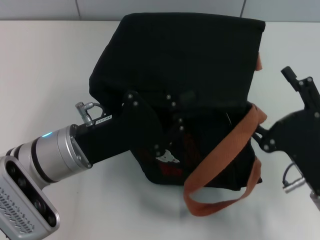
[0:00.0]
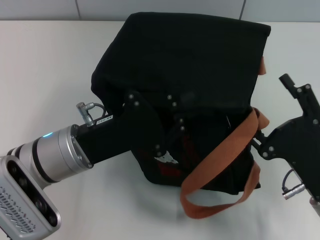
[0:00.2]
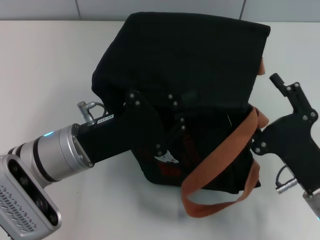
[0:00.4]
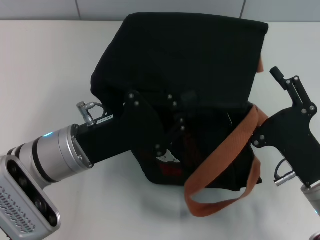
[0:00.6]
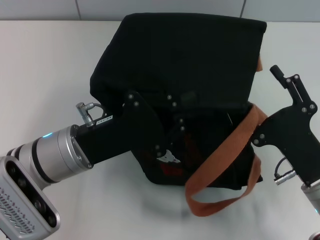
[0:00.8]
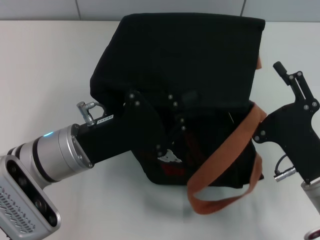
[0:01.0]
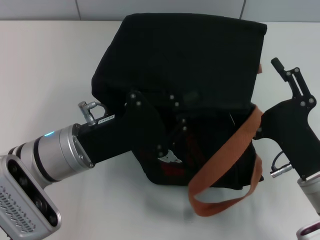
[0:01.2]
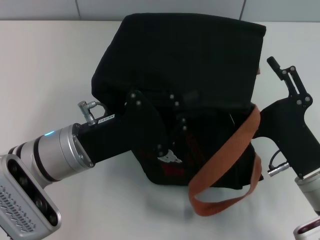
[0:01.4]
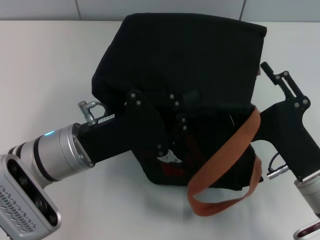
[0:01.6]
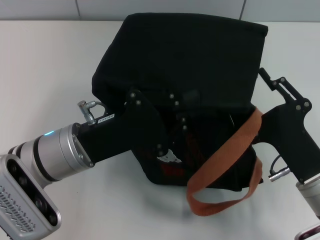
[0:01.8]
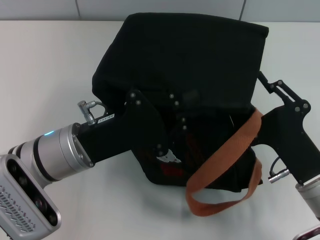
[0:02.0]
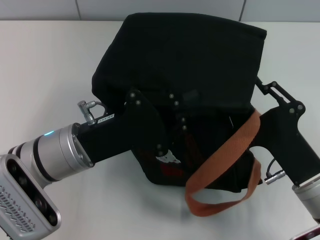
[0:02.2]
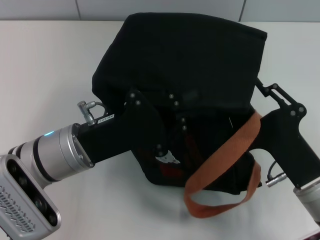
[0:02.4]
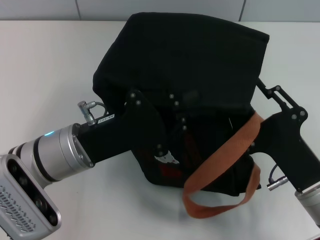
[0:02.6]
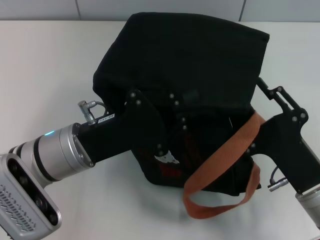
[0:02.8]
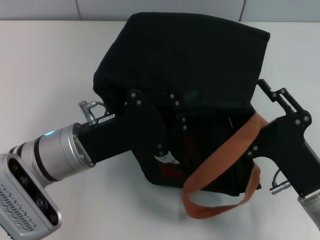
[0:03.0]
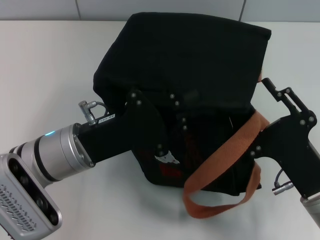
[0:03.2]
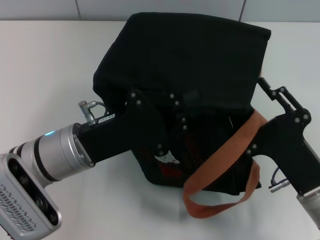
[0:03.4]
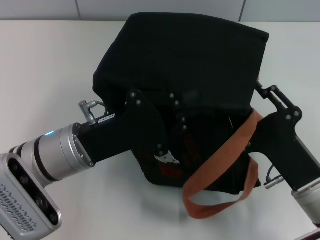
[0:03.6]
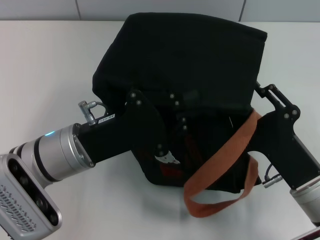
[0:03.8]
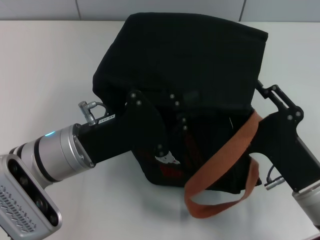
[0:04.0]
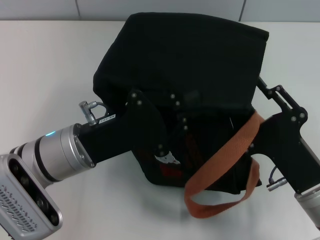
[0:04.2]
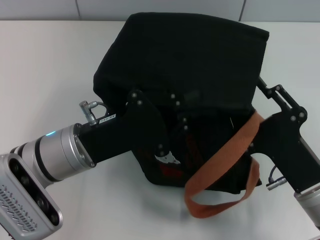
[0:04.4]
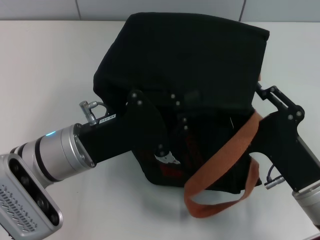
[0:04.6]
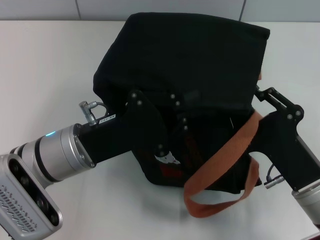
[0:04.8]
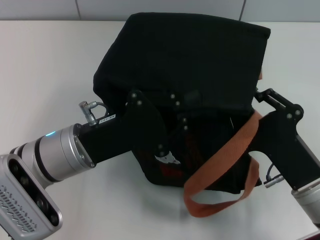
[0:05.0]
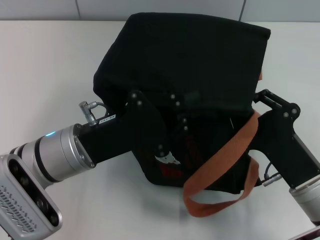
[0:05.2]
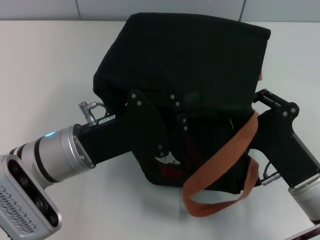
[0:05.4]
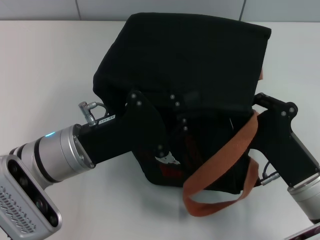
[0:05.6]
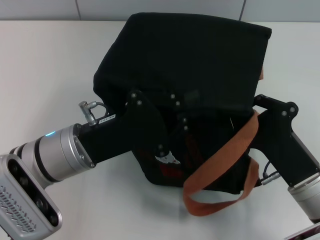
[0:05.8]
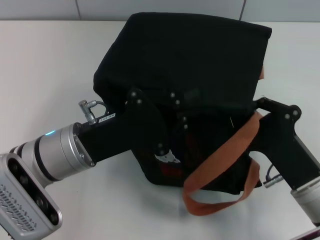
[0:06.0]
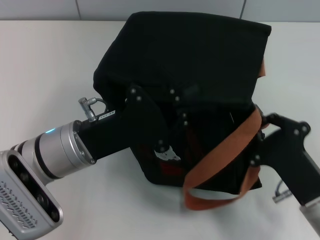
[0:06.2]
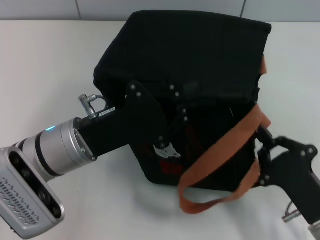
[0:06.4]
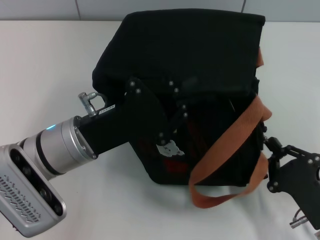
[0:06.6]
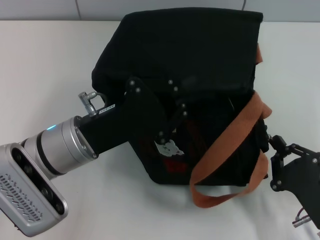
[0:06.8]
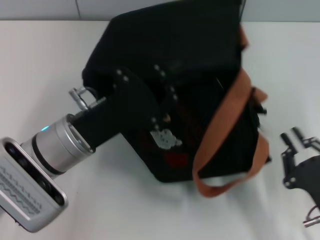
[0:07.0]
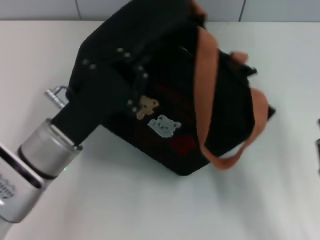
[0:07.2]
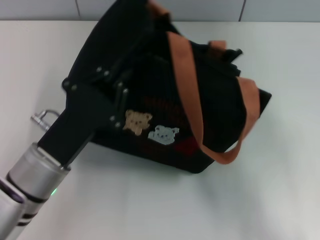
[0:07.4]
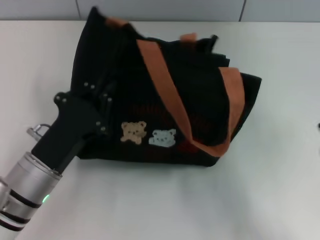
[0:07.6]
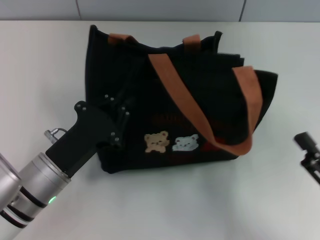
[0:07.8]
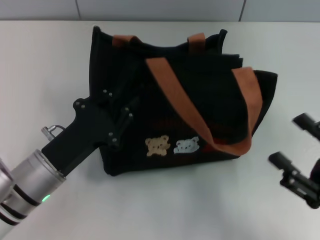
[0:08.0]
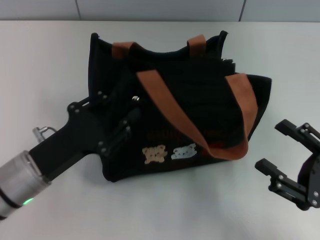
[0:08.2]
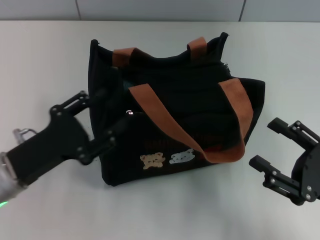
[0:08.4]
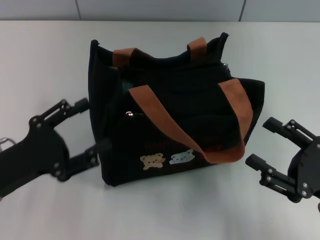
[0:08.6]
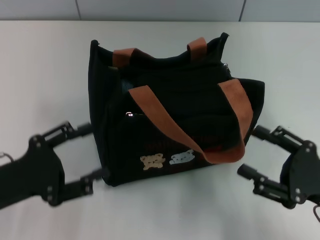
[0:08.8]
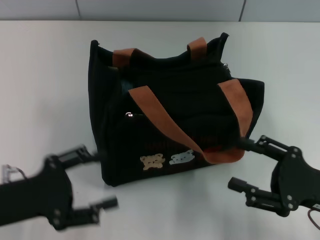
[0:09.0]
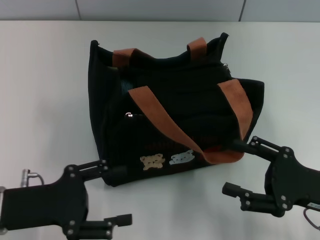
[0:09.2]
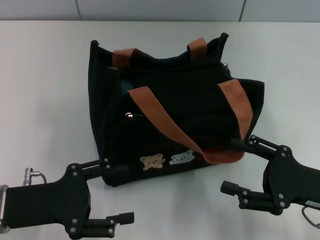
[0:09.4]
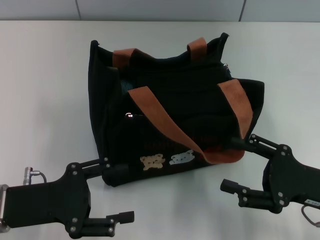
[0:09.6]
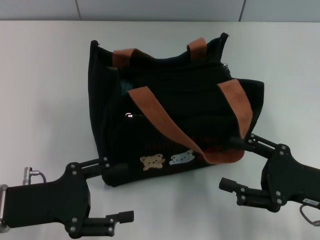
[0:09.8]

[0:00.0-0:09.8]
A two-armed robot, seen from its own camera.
Step, 0:00.0 to 0:06.8: Pull open the zipper with your right hand.
Step, 0:07.2 to 0:08.4: Grab the bag with your left hand.
0:00.0 to 0:01.4: The grippers make only small movements.
0:01.4 to 0:02.8: The right gripper closes its fingers.
0:02.8 to 0:04.2: Both grippers stay put.
0:04.2 to 0:05.6: The right gripper closes up.
0:05.6 to 0:07.0: The right gripper moves backward, about 5 cm.
0:07.0 to 0:08.4: The right gripper changes place by roughly 5 cm, and opens. The left gripper shifts about 10 cm to the left, and opens its fingers.
0:08.4 to 0:09.8: The left gripper opens its fingers.

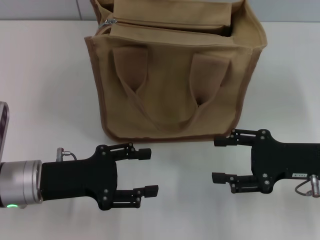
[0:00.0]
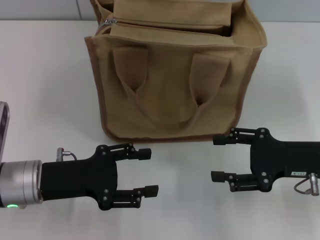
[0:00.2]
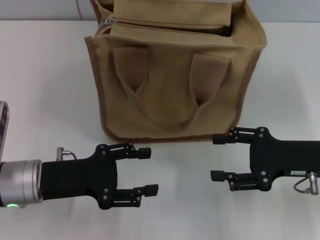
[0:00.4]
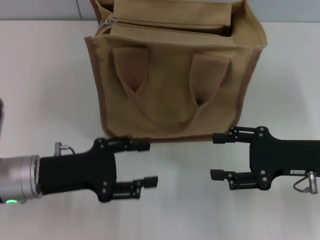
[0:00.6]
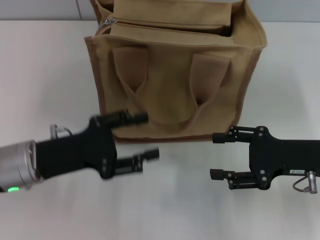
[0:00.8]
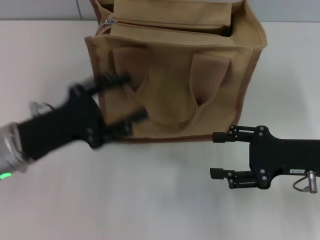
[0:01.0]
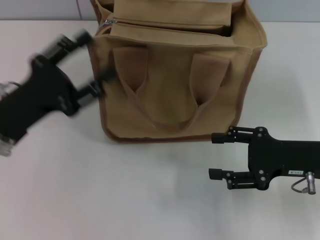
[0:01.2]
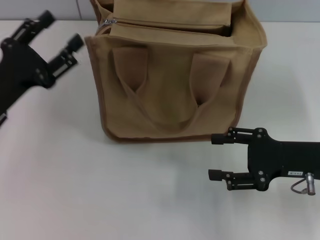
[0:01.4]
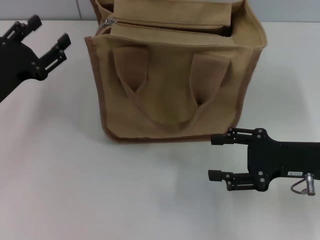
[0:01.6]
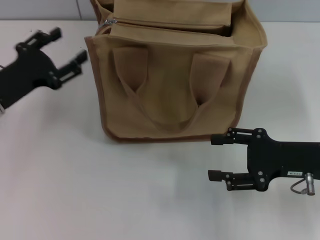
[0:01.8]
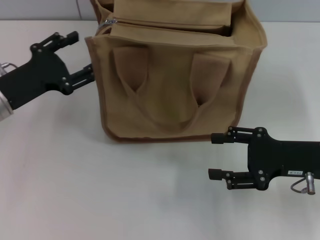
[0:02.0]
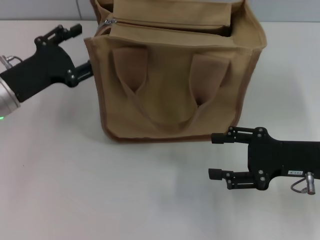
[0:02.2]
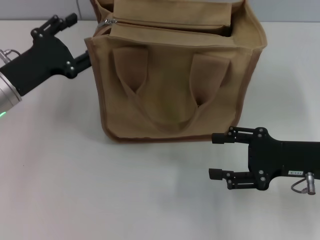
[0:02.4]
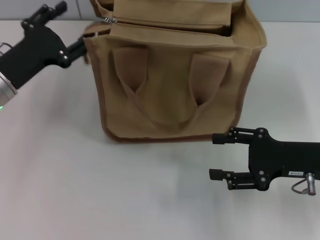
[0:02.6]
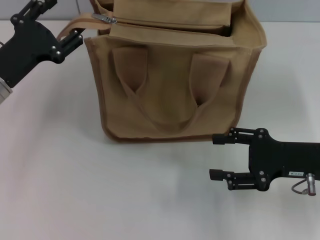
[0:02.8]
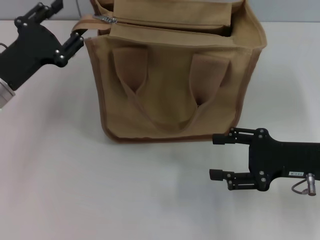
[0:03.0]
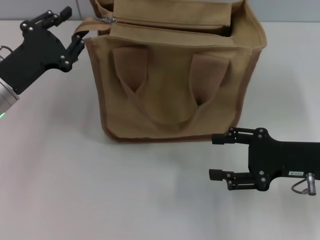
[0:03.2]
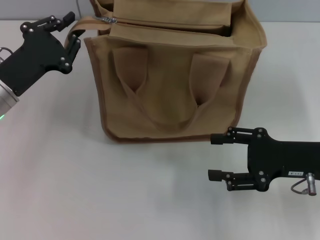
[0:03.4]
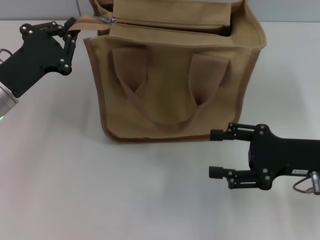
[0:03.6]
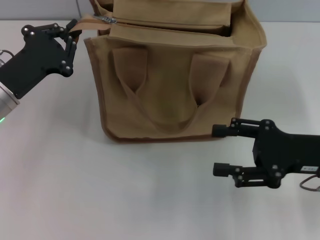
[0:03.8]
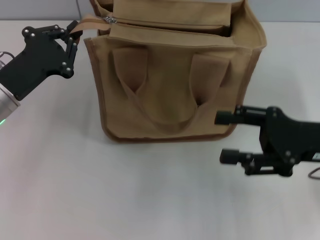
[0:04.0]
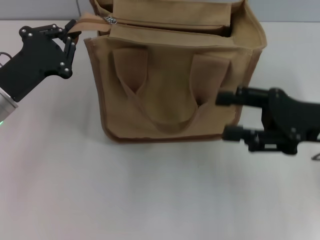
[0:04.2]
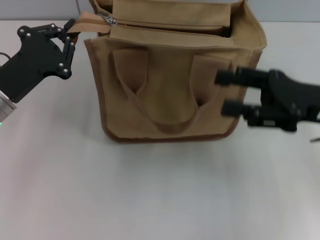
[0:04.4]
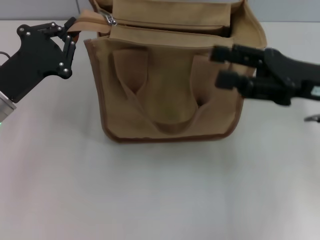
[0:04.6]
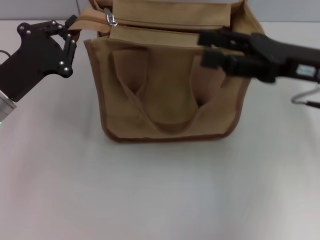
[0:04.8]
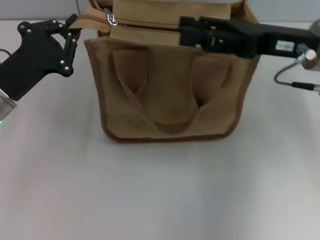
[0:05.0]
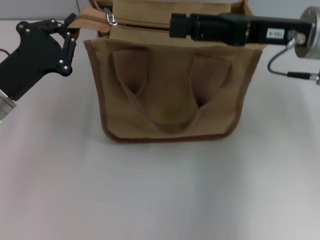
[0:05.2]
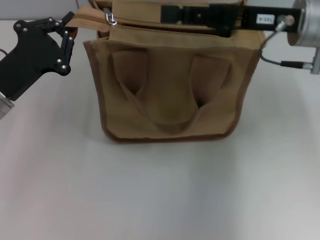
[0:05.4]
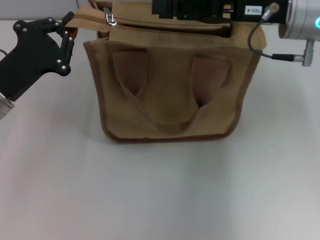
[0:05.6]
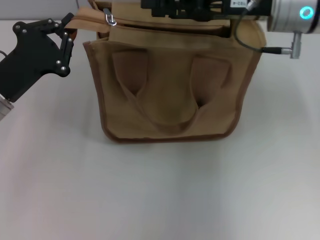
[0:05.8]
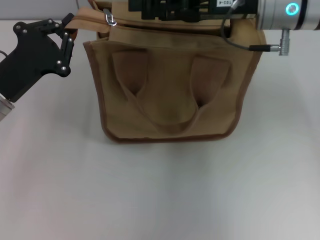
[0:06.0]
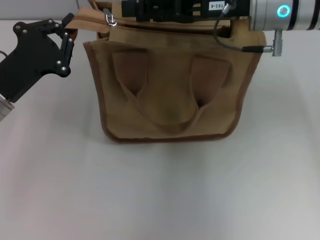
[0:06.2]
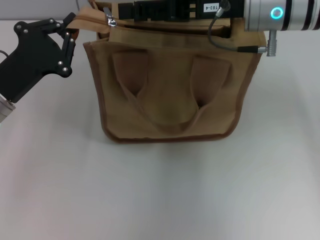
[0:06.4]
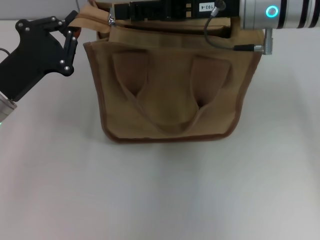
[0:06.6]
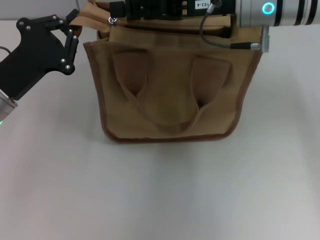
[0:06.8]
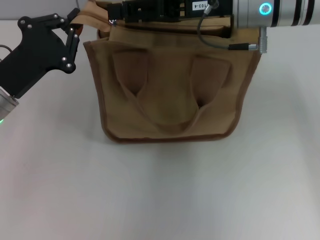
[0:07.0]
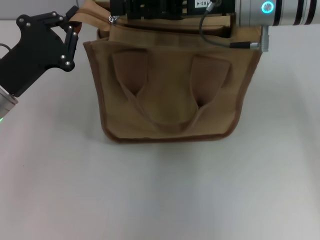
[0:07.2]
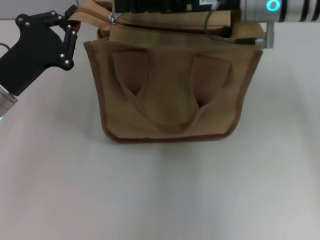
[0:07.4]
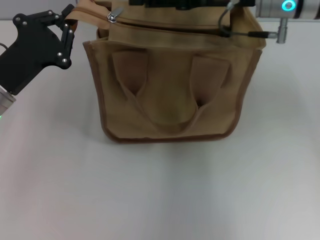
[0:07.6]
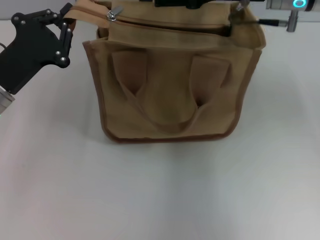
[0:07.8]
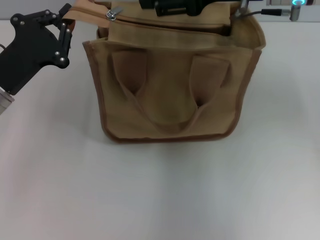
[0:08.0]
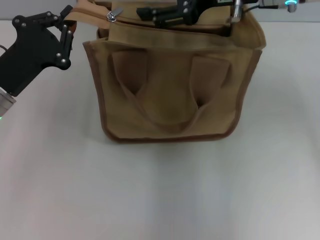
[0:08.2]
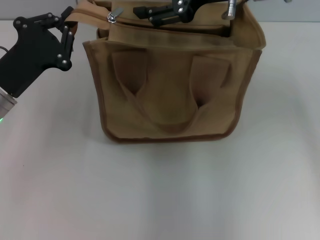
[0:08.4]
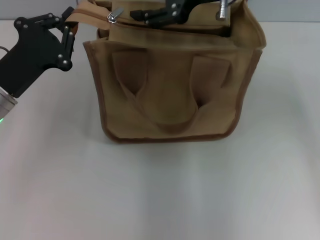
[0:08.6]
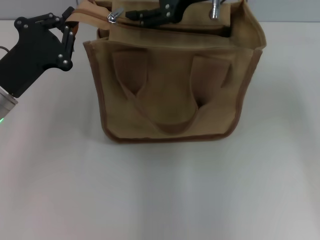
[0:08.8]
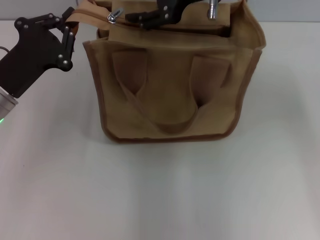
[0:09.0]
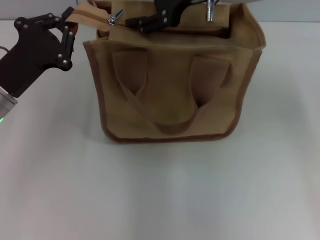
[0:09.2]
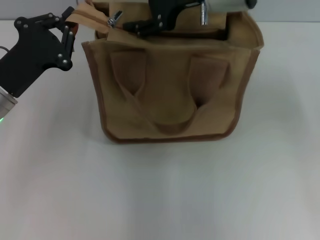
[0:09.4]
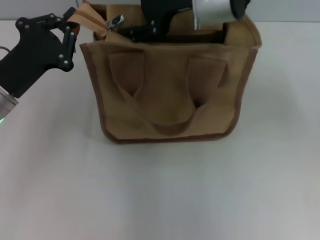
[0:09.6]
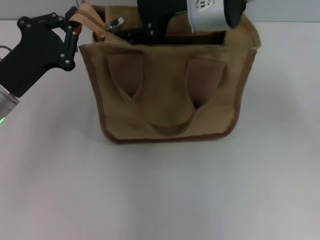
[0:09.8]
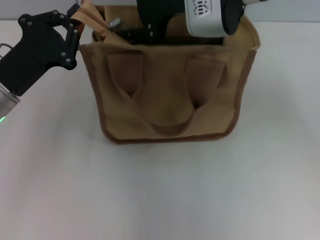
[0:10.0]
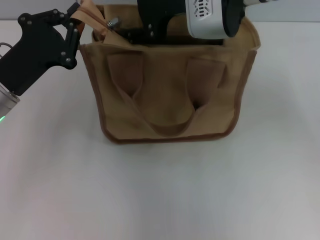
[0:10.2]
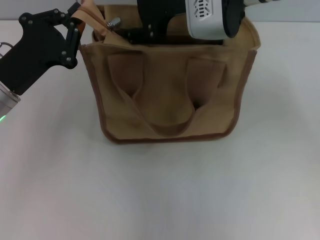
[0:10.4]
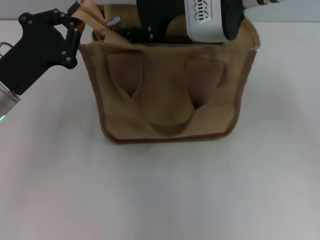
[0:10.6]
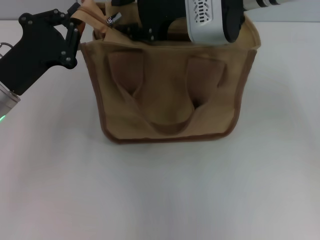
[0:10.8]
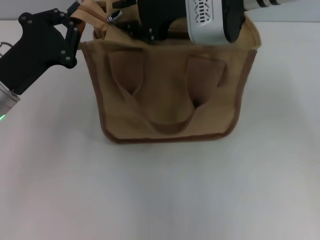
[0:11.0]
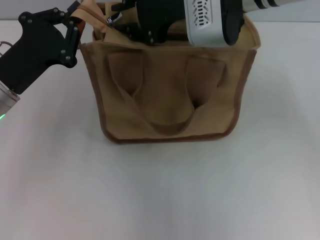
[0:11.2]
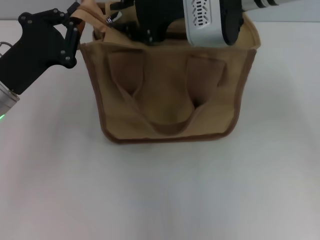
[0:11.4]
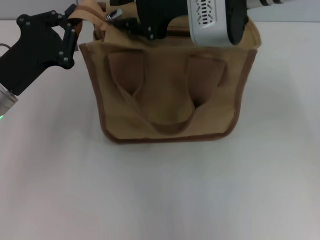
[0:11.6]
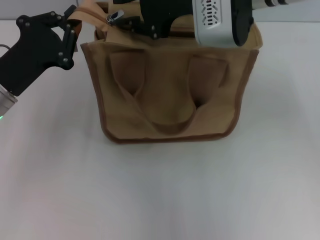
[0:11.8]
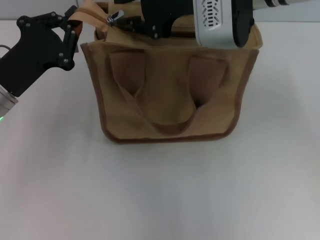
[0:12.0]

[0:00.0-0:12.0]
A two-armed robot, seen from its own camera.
0:00.0 to 0:01.6: The left gripper shifts about 10 cm to the left and forward.
0:01.6 to 0:03.0: There are only small adjustments of the grippers.
0:03.0 to 0:04.4: The right gripper travels upward by roughly 5 cm. Meanwhile the left gripper closes its fingers.
0:04.4 to 0:06.0: The right gripper goes about 15 cm forward, to the left and upward.
0:07.6 to 0:09.0: The right gripper moves about 5 cm.
0:09.0 to 0:10.4: There are only small adjustments of the grippers.
0:10.4 to 0:12.0: The right gripper closes its fingers.
